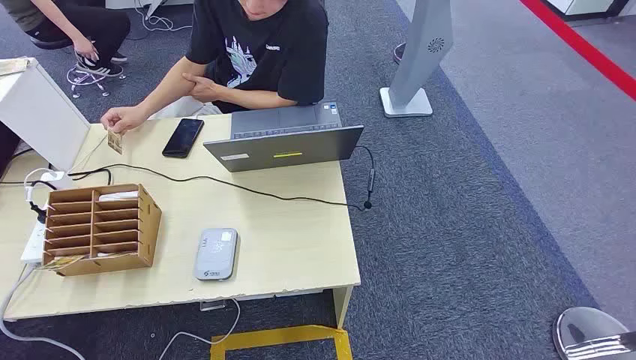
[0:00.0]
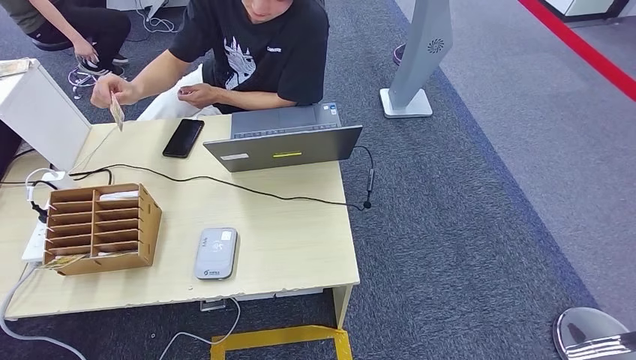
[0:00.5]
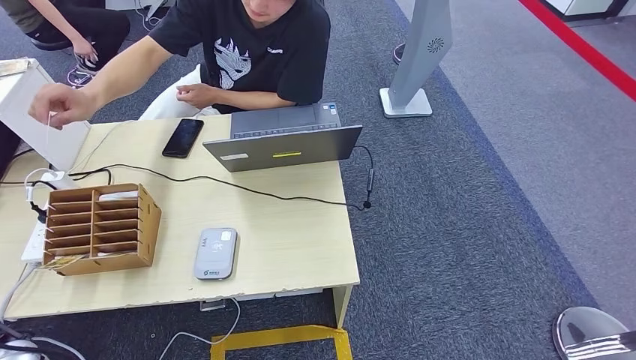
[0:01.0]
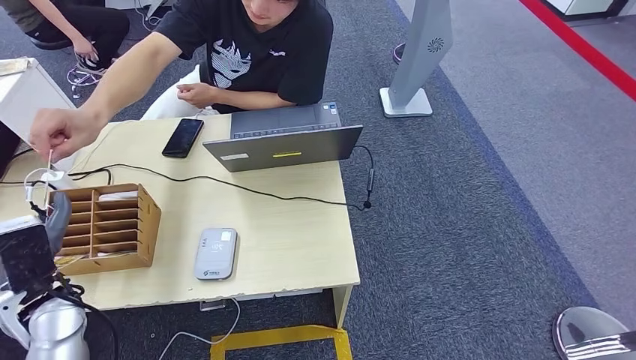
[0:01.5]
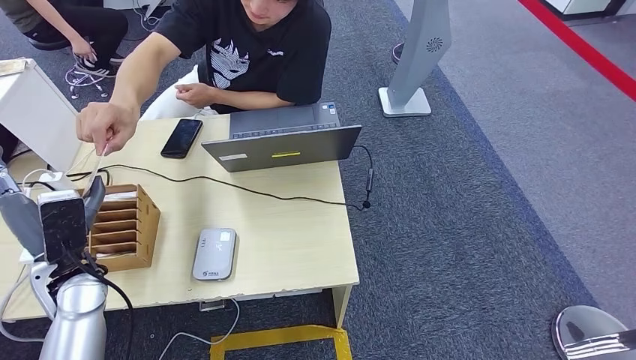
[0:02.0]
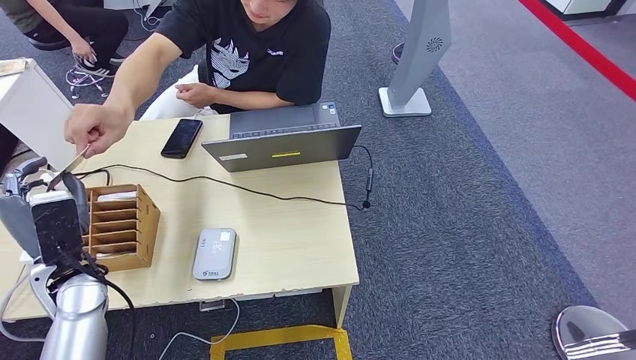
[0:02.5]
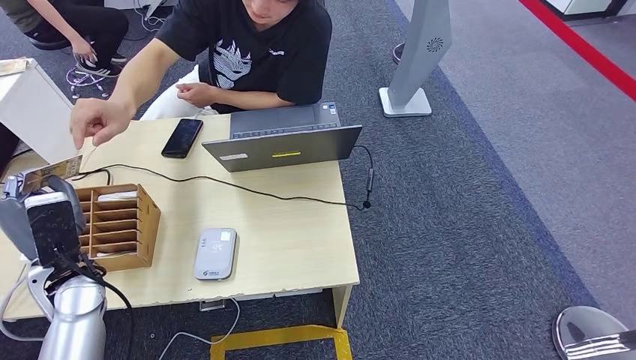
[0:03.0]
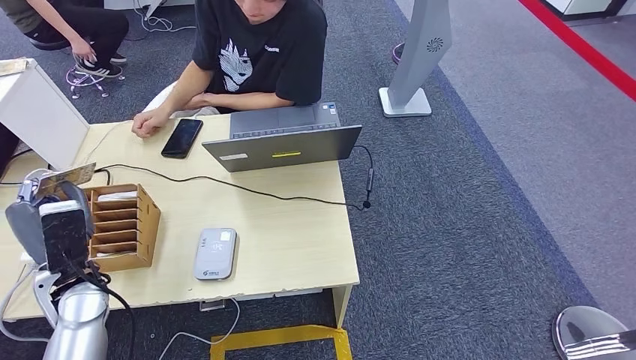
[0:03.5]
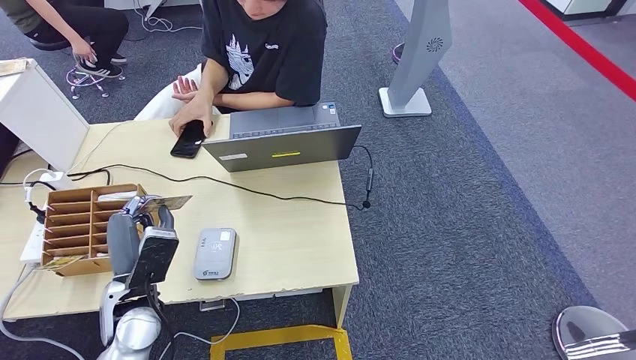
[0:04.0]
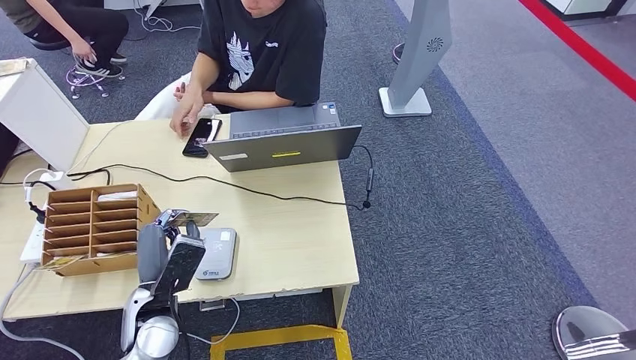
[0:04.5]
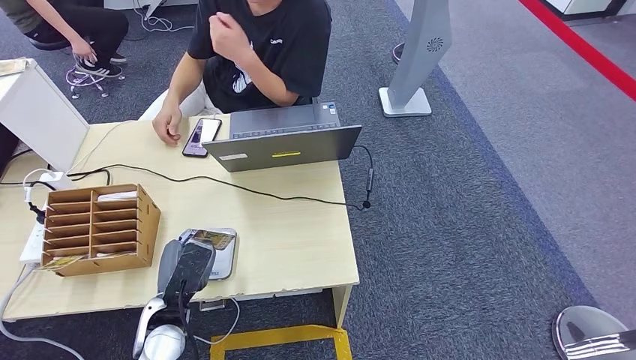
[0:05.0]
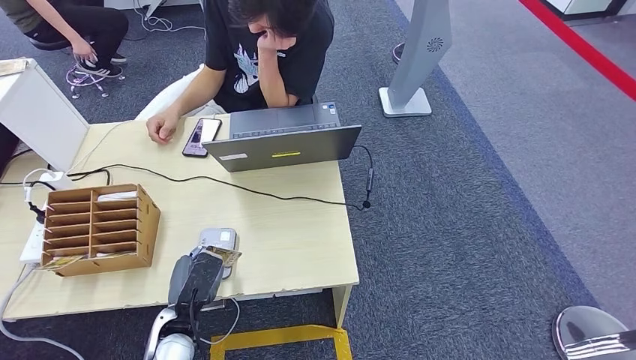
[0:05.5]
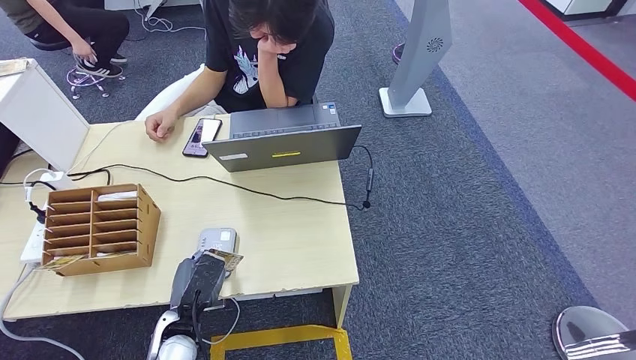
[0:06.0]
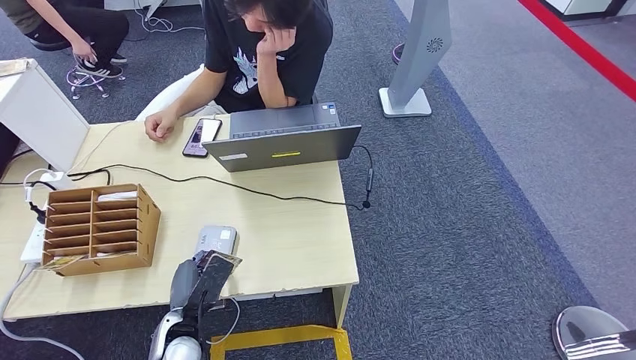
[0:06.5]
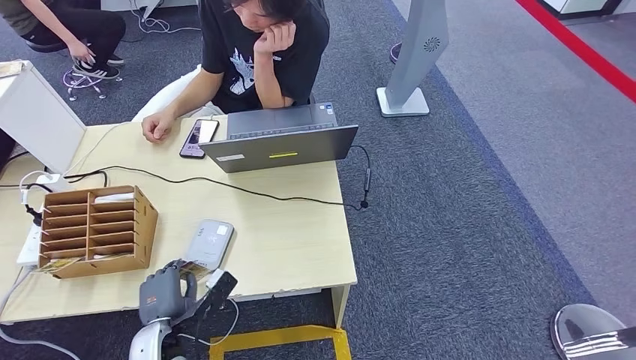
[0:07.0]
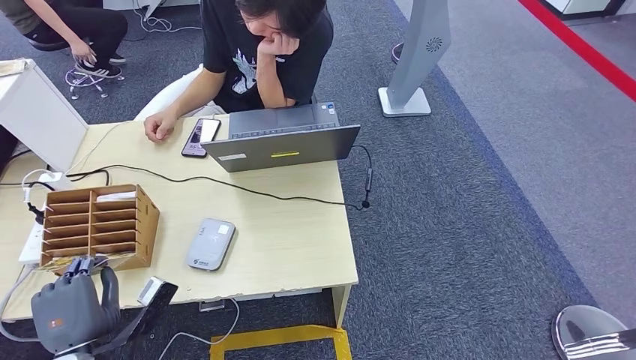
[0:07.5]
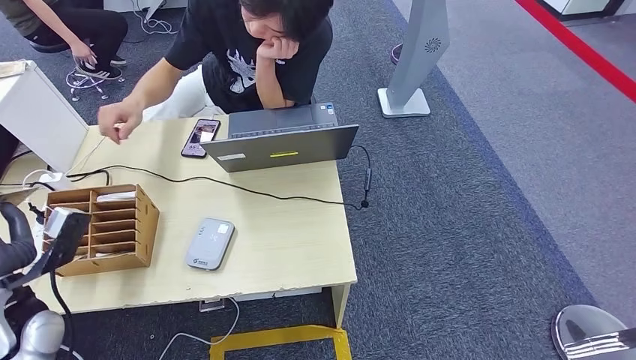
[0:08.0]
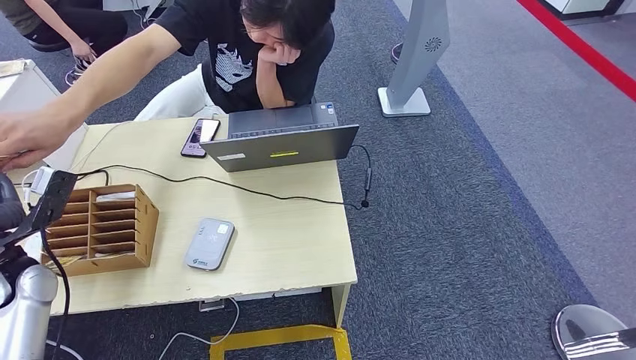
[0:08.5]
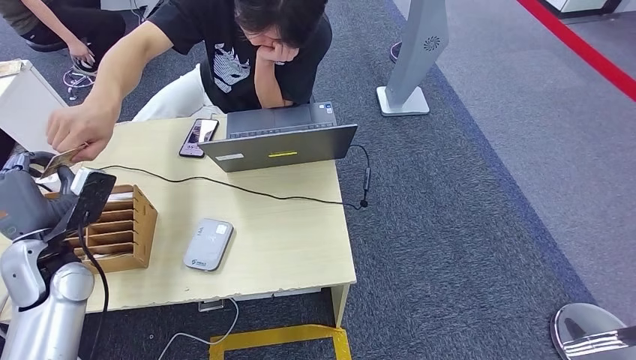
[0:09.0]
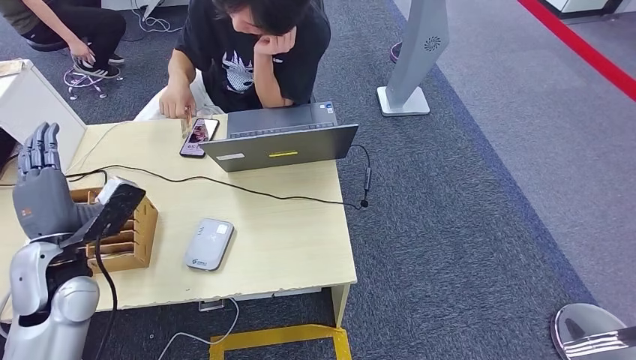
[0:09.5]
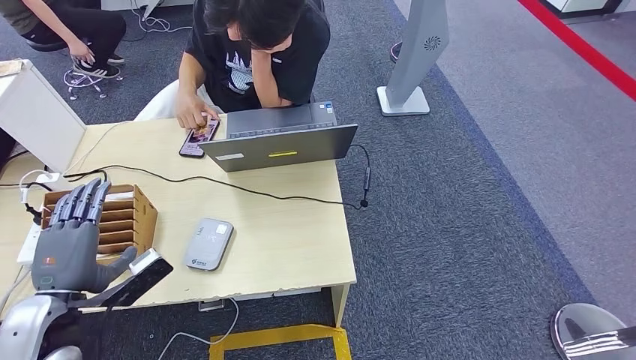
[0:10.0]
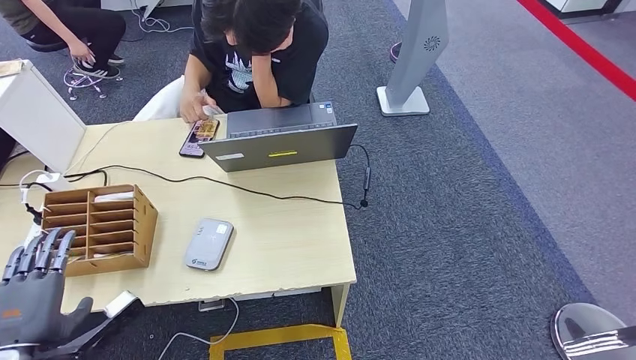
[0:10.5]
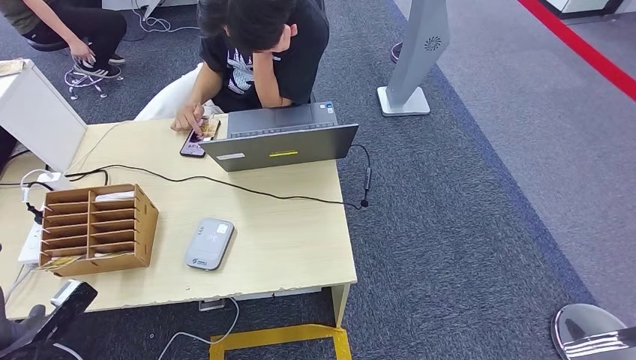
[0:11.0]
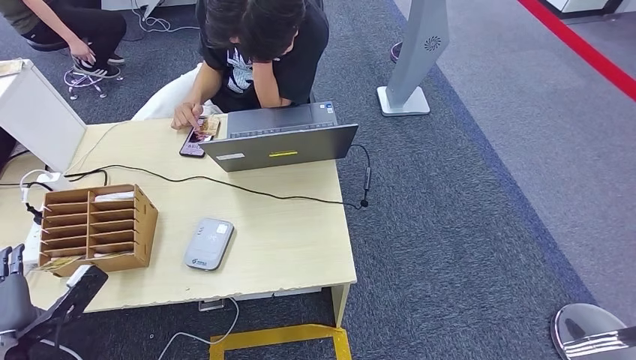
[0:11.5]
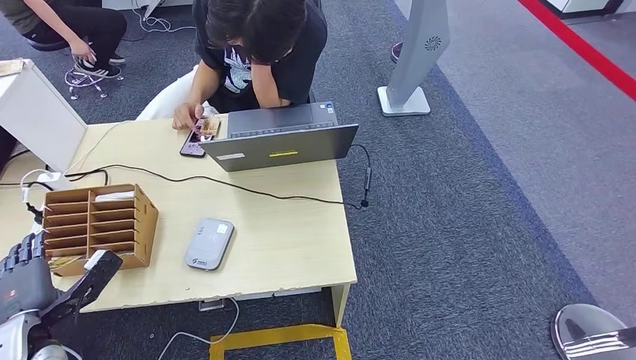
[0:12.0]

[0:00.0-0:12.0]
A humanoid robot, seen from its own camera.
Step, 0:00.0 to 0:03.5: Take the ID card from the person's hand.
Step, 0:04.5 to 0:06.5: Place the ID card on the card reader.
Step, 0:07.0 to 0:09.0: Hand the ID card to the person.
0:02.0 to 0:04.0: The left hand goes about 5 cm to the right.
0:04.0 to 0:06.0: The left hand moves downward, roughly 10 cm.
0:06.0 to 0:08.0: The left hand is displaced to the left and upward by some 25 cm.
0:08.0 to 0:10.0: The left hand goes about 5 cm to the right.
0:10.0 to 0:12.0: The left hand is displaced downward and to the left by some 10 cm.

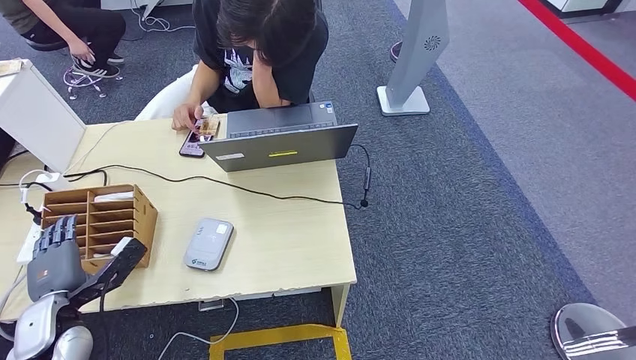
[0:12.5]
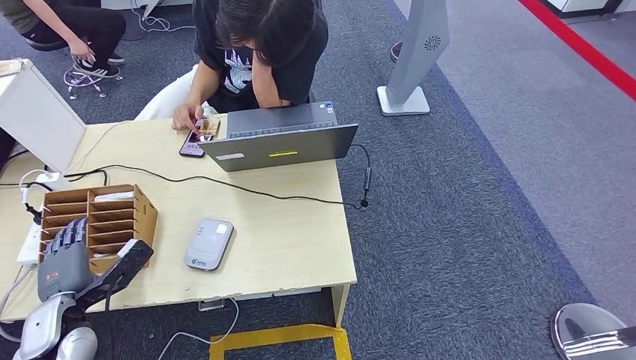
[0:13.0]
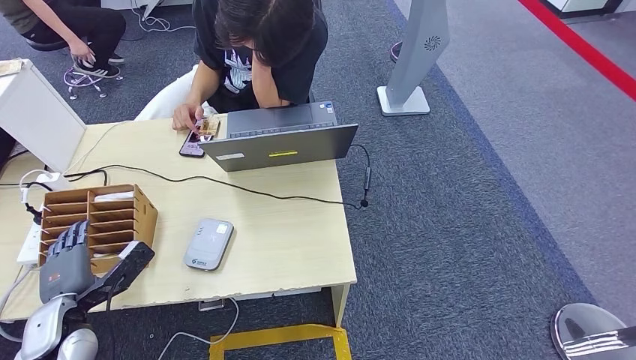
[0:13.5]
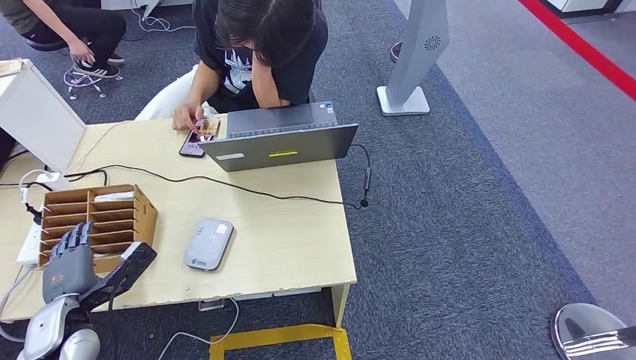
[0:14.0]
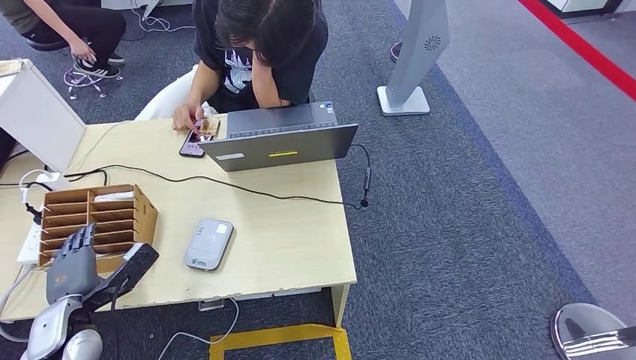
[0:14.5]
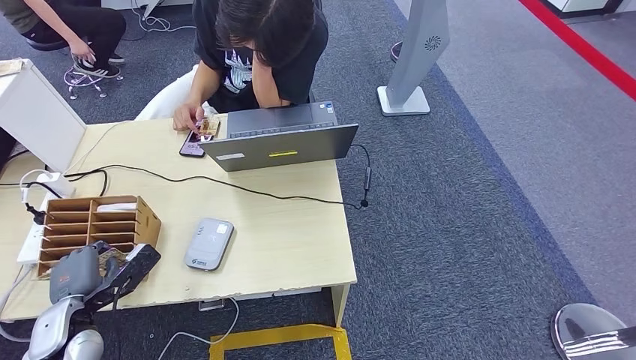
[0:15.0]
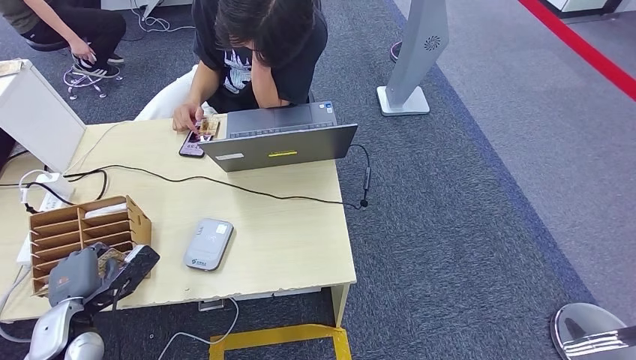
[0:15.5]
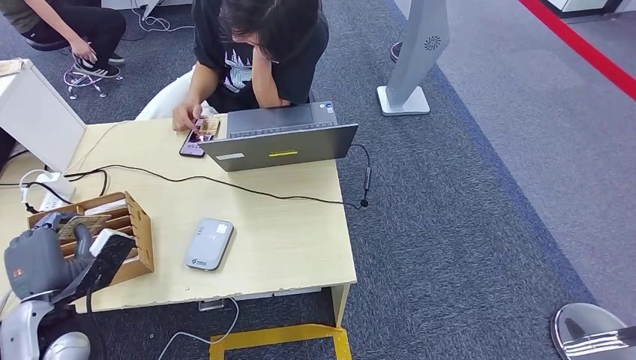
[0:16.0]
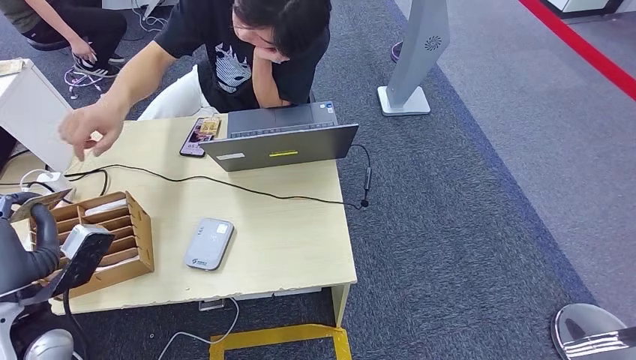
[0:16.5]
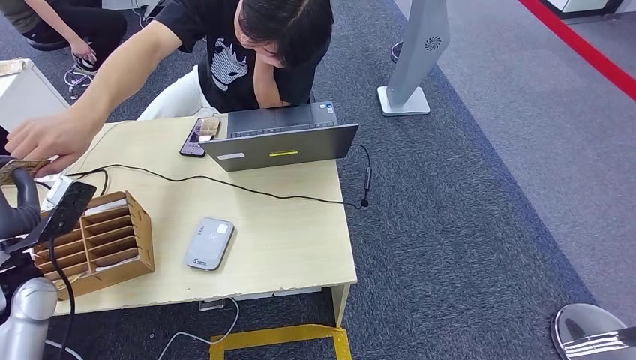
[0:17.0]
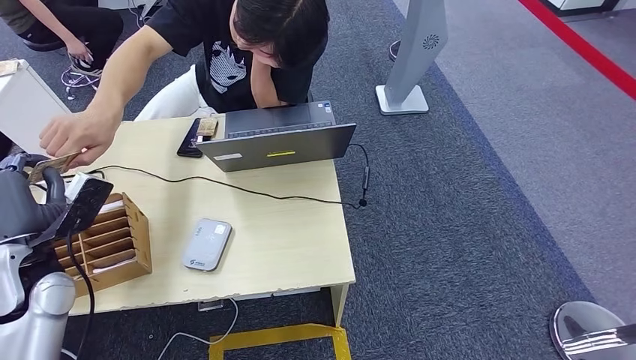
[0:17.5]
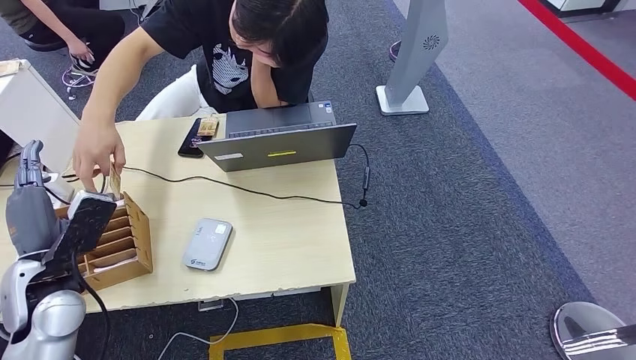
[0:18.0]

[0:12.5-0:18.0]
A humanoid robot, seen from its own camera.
Step, 0:12.5 to 0:15.5: Pick up the room key from the key card box.
Step, 0:16.0 to 0:18.0: Hand the room key to the person.
0:12.5 to 0:14.5: The hands move only a little.
0:14.5 to 0:16.0: The left hand heads upward, covering roughly 5 cm.
0:16.0 to 0:18.0: The left hand shifts by roughly 5 cm.
